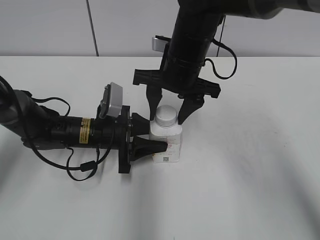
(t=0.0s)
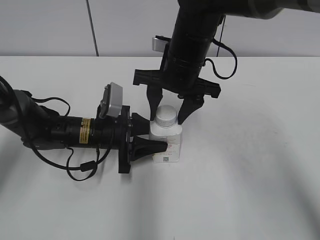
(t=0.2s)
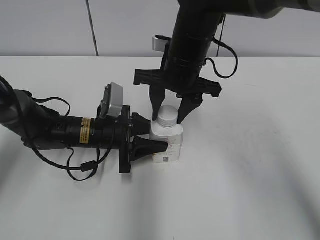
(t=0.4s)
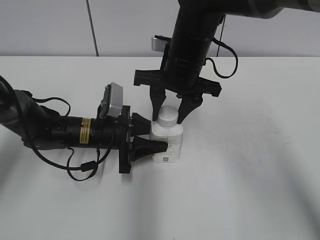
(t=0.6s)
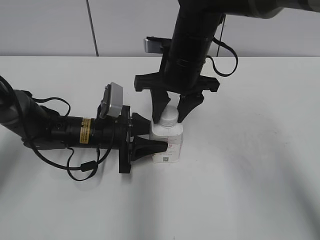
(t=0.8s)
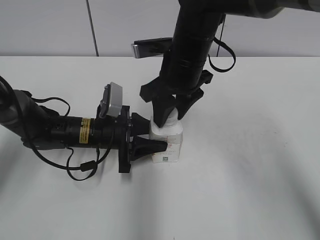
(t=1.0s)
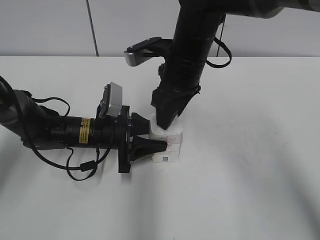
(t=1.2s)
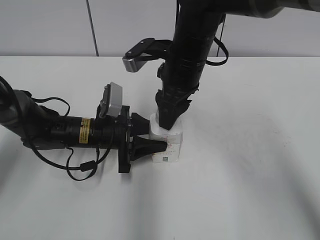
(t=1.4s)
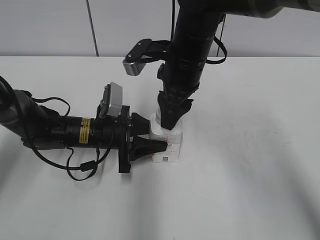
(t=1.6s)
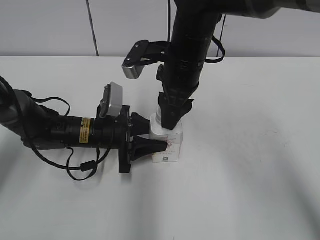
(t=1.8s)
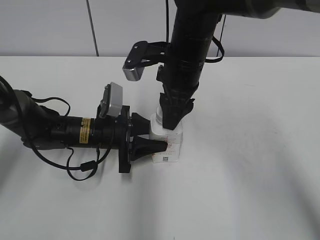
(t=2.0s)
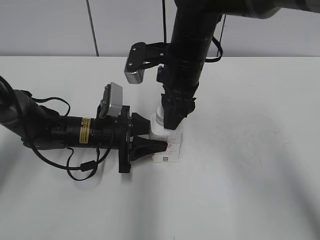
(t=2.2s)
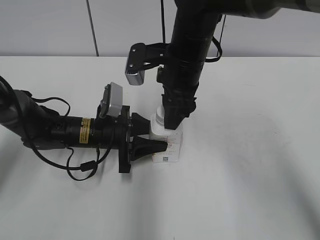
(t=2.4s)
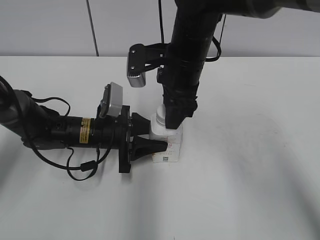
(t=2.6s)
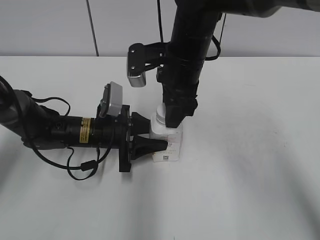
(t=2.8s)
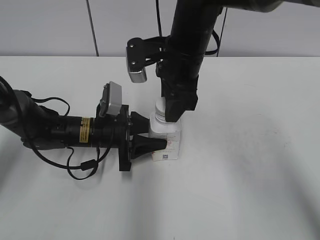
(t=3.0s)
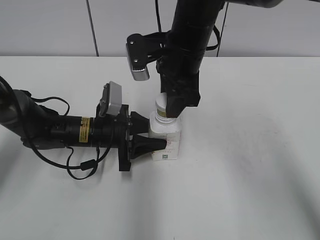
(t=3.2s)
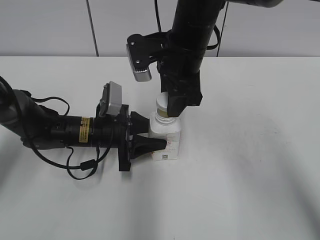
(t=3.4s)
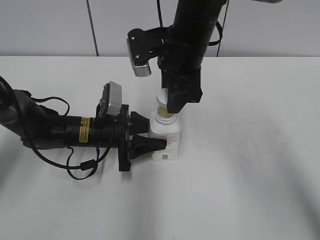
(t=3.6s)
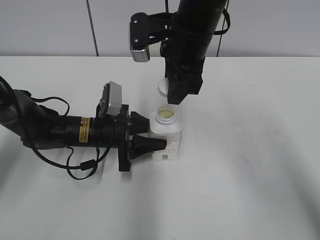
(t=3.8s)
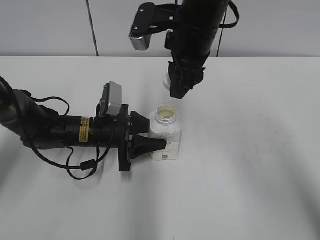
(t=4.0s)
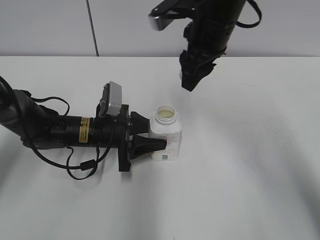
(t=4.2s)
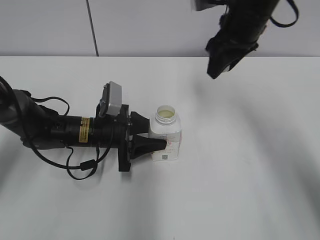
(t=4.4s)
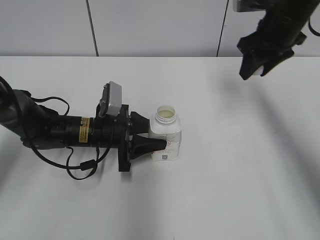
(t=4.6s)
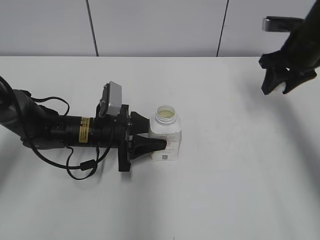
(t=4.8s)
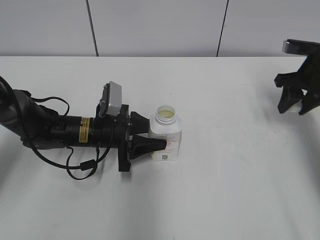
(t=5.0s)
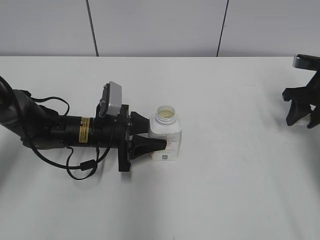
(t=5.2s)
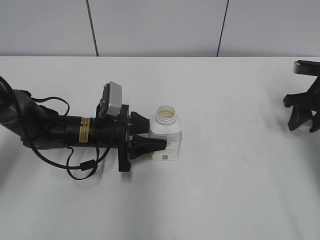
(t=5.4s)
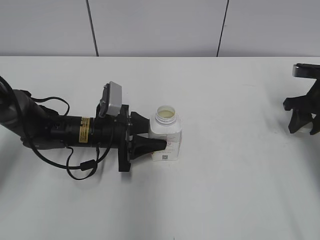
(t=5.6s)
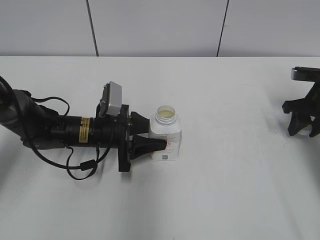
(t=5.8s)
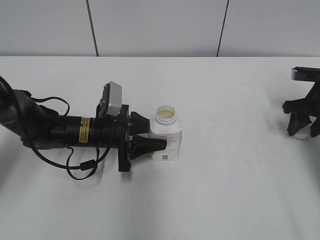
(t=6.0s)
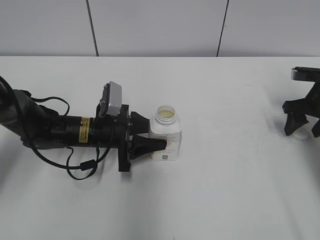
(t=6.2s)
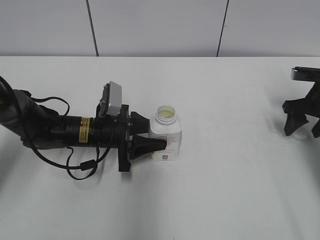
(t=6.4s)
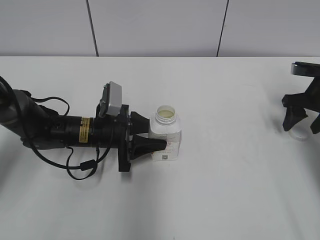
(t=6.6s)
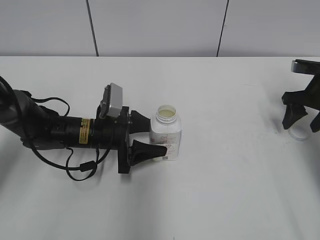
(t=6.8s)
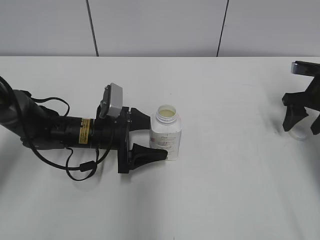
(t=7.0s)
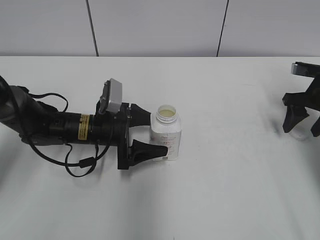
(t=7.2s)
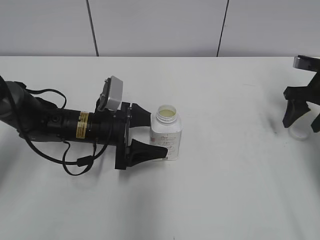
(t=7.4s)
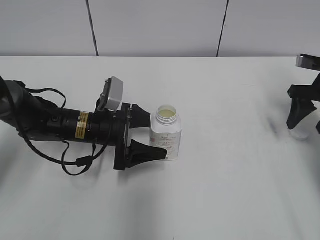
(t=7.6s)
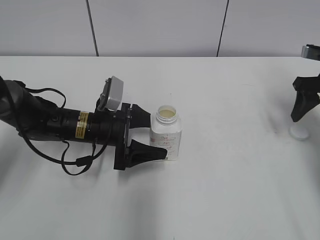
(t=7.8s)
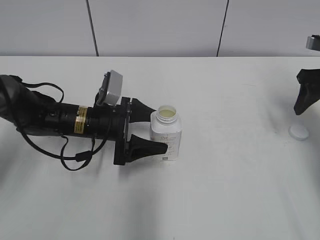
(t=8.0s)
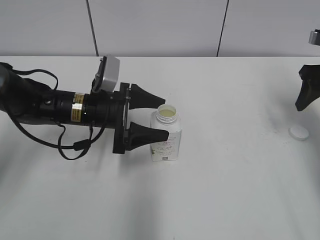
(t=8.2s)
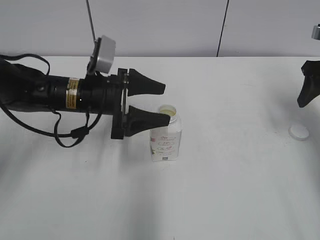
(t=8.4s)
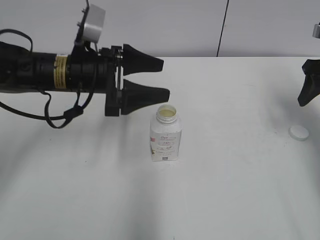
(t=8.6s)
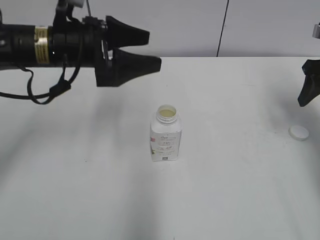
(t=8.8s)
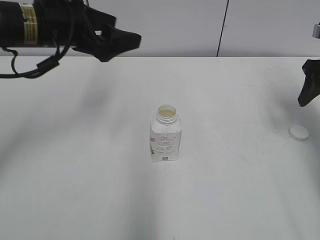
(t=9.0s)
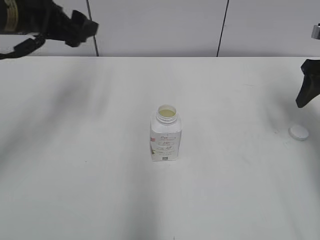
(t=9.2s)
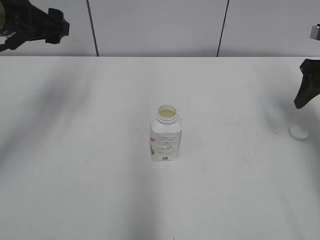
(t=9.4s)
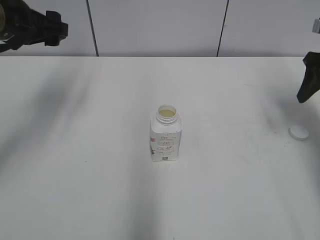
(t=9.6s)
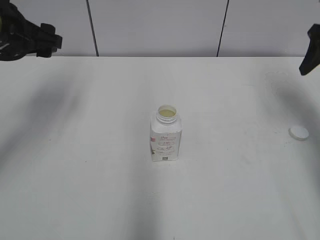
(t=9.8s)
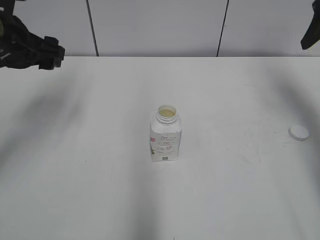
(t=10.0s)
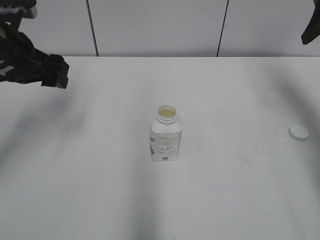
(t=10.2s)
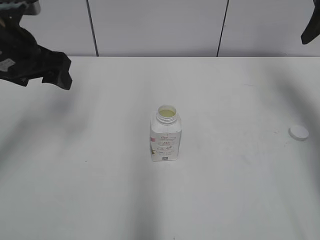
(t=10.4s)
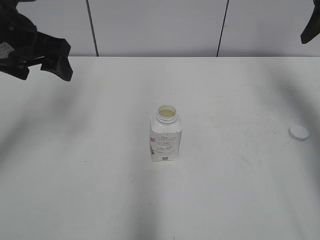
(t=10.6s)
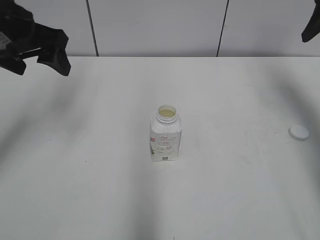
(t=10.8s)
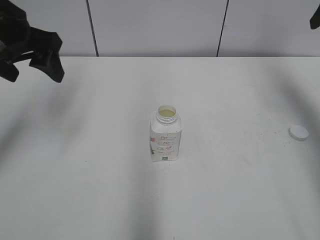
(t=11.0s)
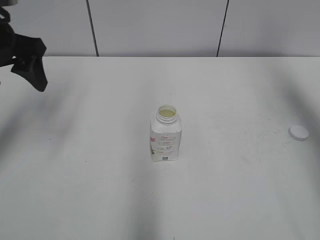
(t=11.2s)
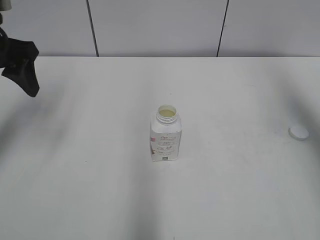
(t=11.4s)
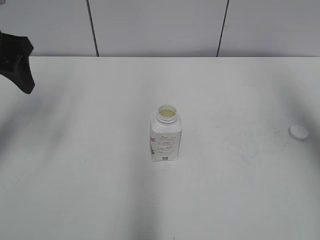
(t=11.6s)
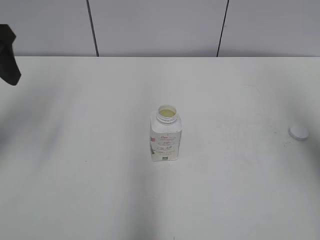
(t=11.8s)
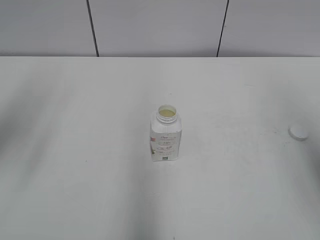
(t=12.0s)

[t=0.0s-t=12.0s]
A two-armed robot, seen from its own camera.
Step, t=3.8s to t=6.2s: Place the bottle cap on the right.
Step, t=6.6s to t=8.2s: Place the Yili Changqing with the left hand.
t=0.0s to t=1.6s: The right gripper closes its fingers.
t=3.0s to t=4.4s: The right gripper goes some 10 cm to the right.
t=4.4s to t=6.0s: The right gripper shifts approximately 25 cm to the right and downward.
t=6.0s to t=7.6s: The left gripper opens up. Meanwhile the right gripper opens up.
t=7.6s to t=9.0s: The left gripper moves upward, approximately 20 cm, while the right gripper heads upward, covering some 5 cm.
t=9.0s to t=10.4s: The right gripper moves upward, roughly 10 cm. Meanwhile the left gripper goes about 5 cm to the left.
t=10.4s to t=12.0s: The left gripper travels upward and backward by some 10 cm. Meanwhile the right gripper shifts about 25 cm backward.
